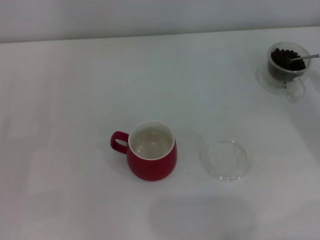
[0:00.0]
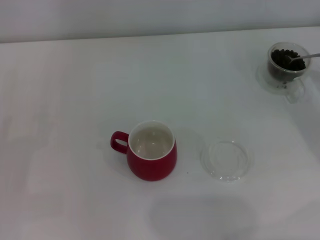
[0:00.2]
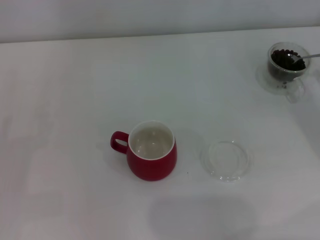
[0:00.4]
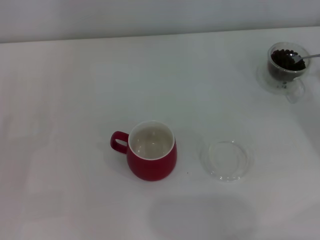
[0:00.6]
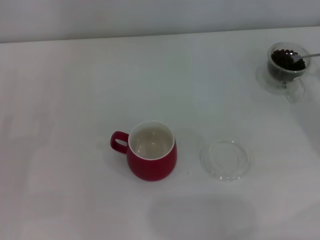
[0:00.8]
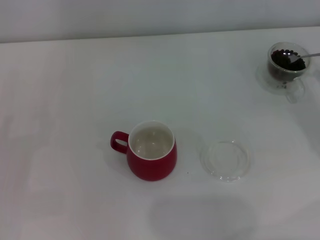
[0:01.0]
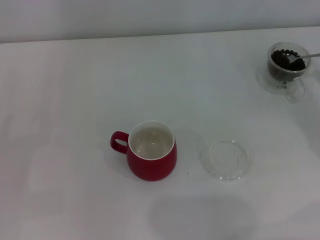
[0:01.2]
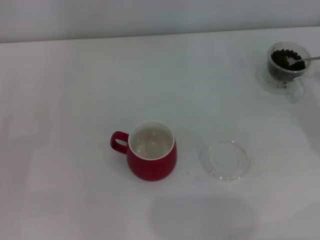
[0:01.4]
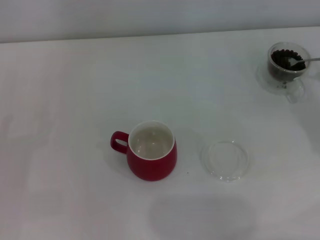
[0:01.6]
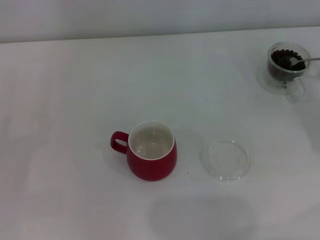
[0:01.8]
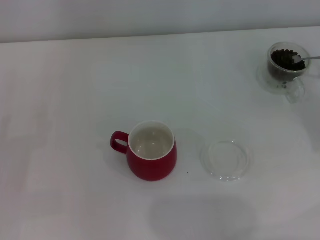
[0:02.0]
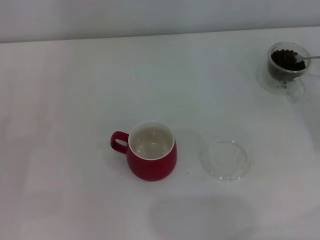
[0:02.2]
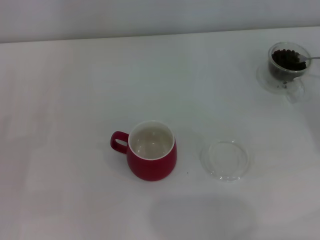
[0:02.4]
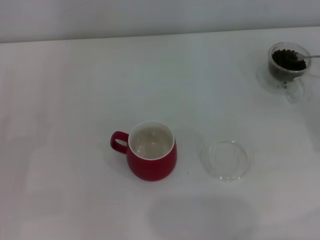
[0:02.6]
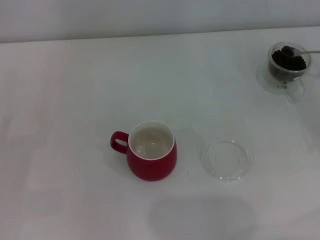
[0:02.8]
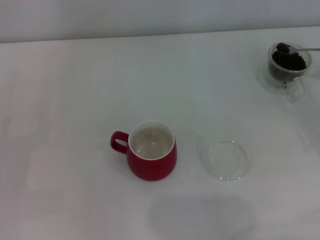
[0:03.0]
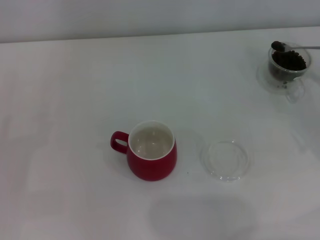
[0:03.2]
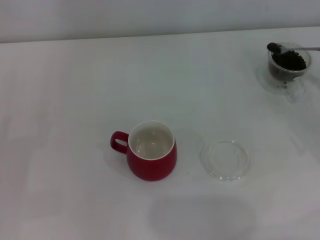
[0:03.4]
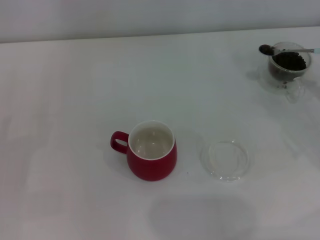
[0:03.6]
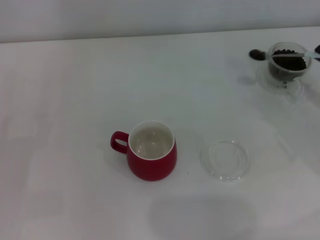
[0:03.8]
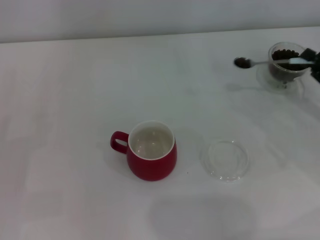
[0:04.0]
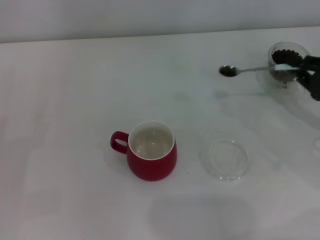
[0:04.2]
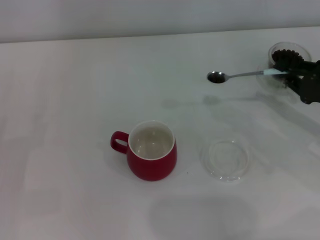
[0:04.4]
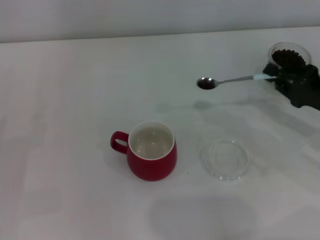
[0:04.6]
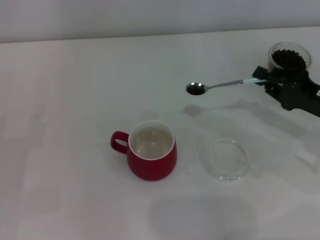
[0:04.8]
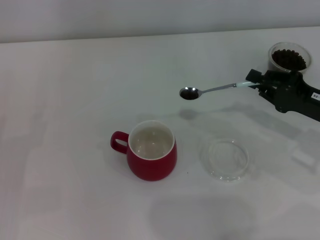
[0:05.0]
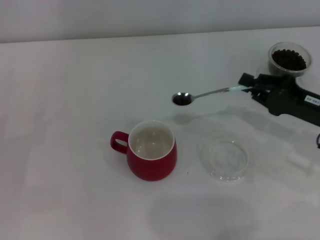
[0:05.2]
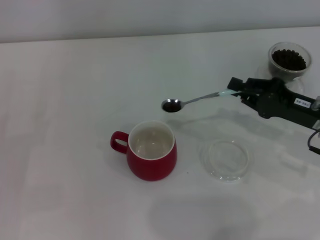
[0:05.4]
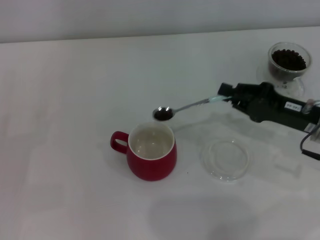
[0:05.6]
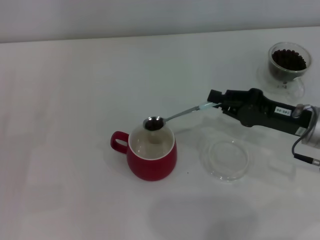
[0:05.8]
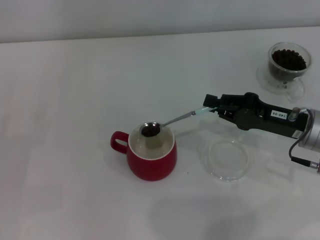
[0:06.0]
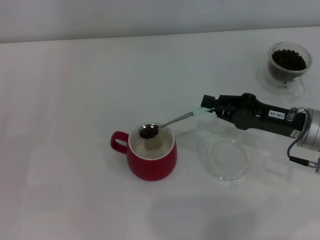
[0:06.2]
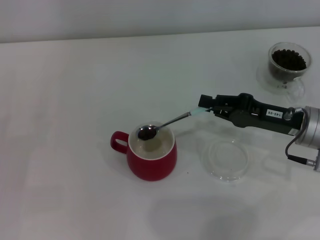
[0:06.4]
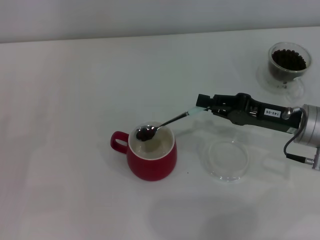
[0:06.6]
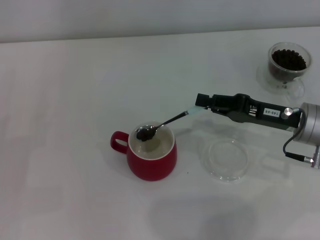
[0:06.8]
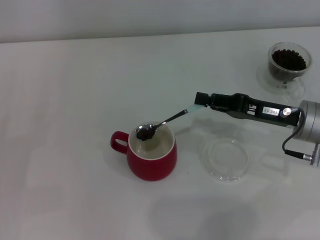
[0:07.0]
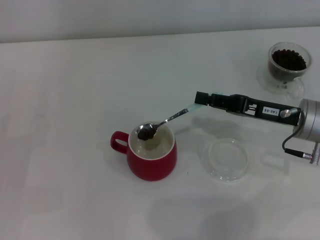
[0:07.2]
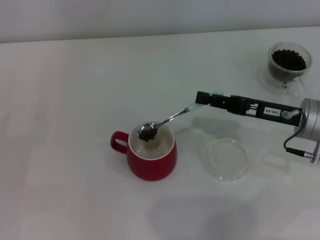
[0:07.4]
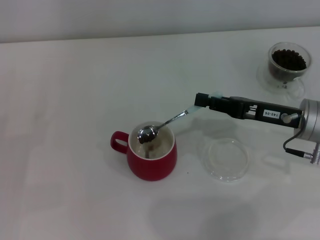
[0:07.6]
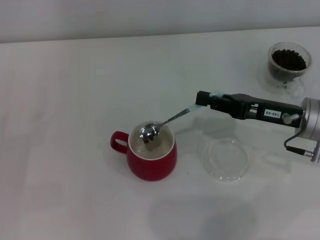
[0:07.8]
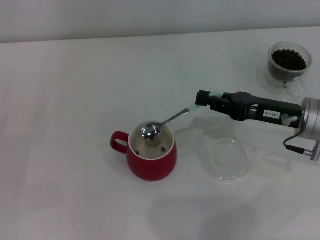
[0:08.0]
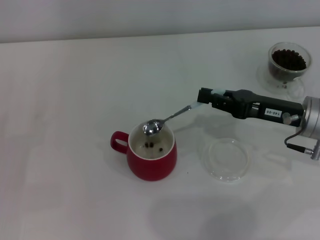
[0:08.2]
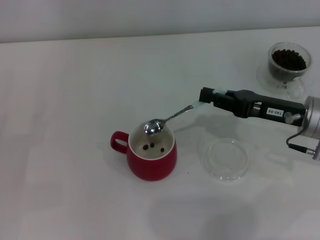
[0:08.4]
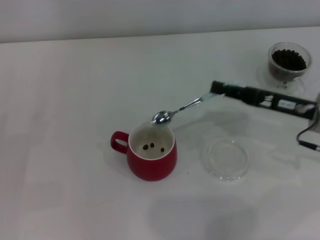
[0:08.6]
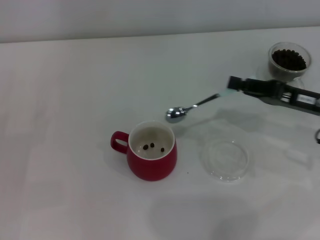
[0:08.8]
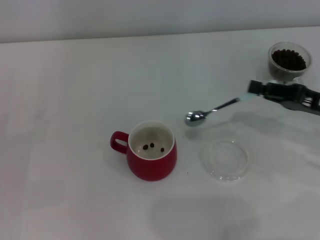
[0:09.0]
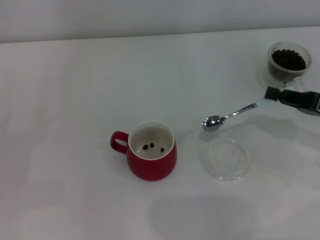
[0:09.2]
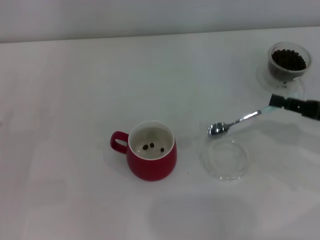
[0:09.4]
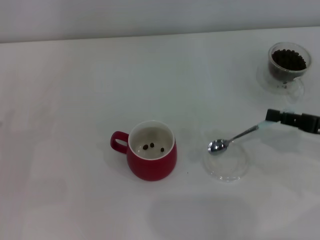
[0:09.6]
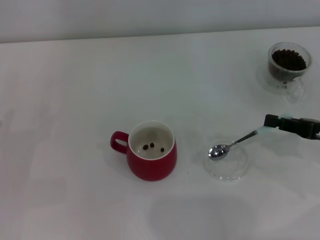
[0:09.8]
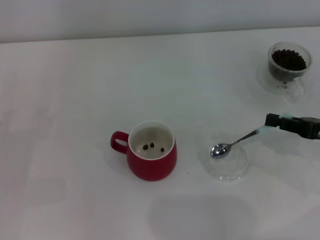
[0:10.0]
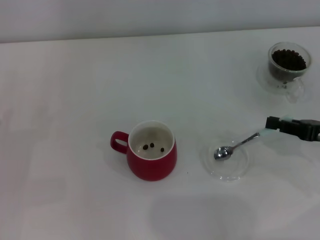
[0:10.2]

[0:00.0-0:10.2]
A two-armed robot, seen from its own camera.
Task of the whole recording: Use a blue spoon to take out the coffee beans from the glass and pour them into the red cup.
Step, 0:00.0 to 0:08.4: Scoop a spoonful of beans into the cup with the right gripper.
0:03.0 to 0:04.4: The right gripper travels to the left by approximately 10 cm.
0:04.4 to 0:05.8: The right gripper heads to the left, covering about 5 cm.
0:07.2 to 0:08.8: The grippers move only a little.
0:08.8 to 0:10.2: The right gripper goes approximately 5 cm to the right.
